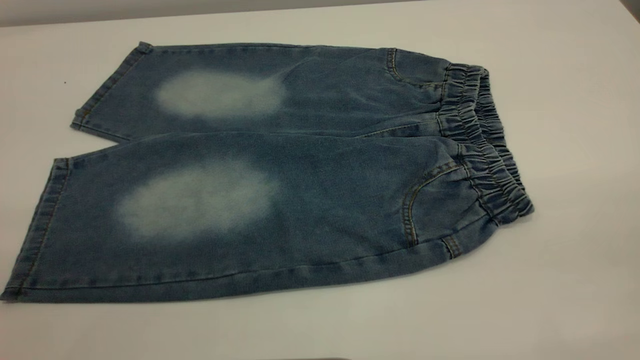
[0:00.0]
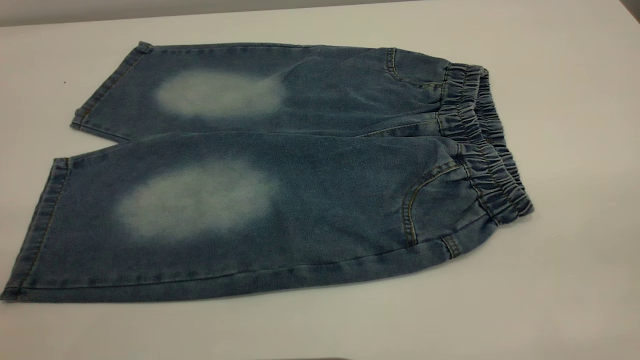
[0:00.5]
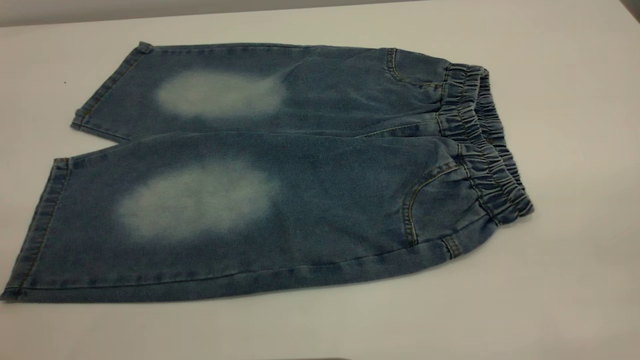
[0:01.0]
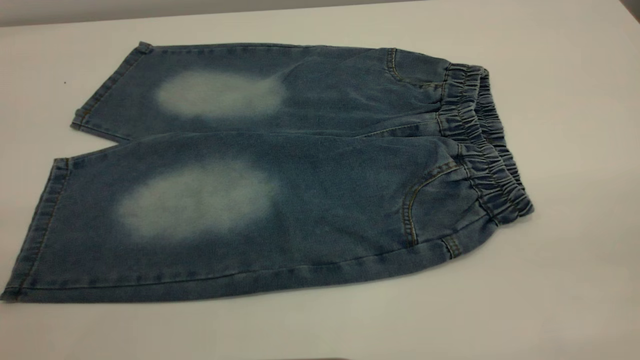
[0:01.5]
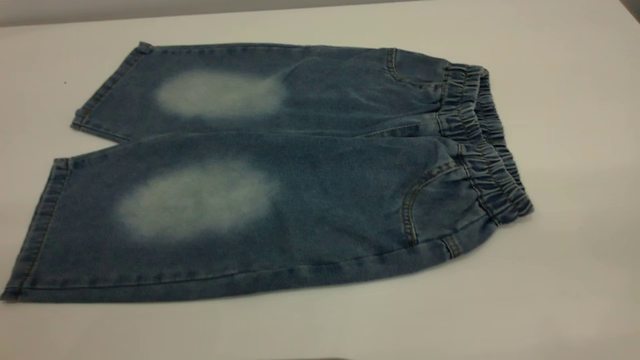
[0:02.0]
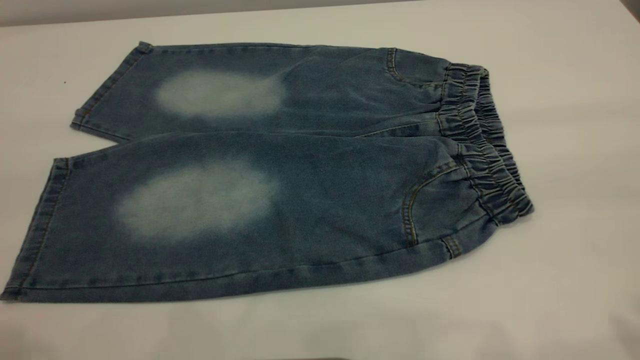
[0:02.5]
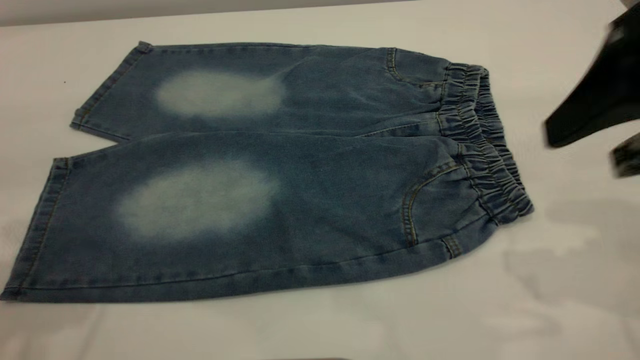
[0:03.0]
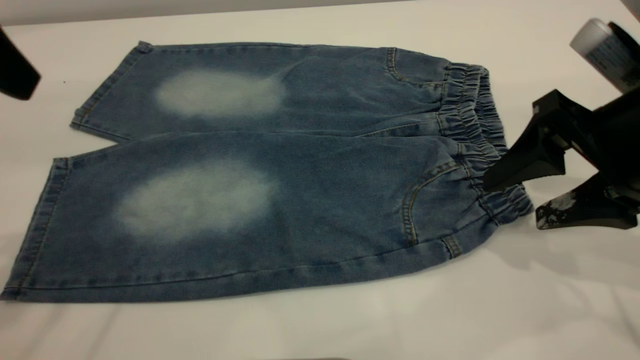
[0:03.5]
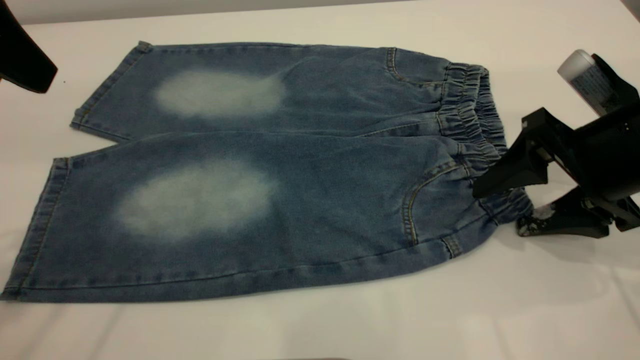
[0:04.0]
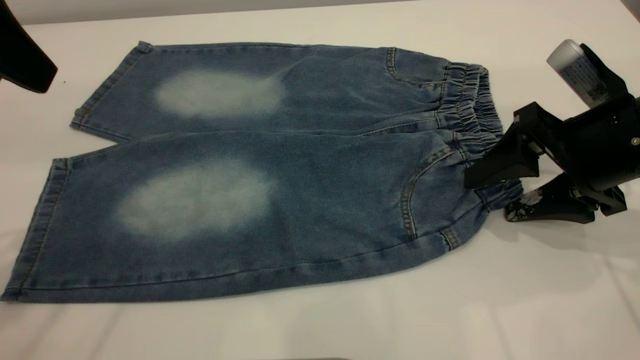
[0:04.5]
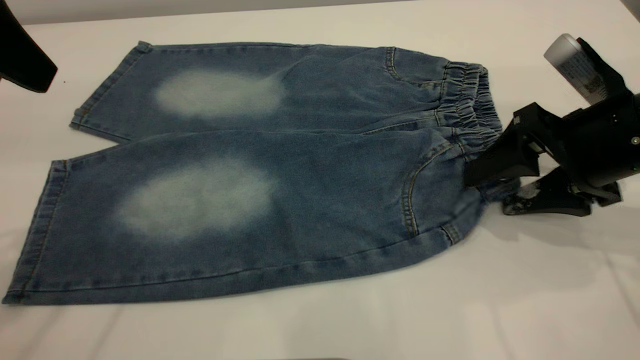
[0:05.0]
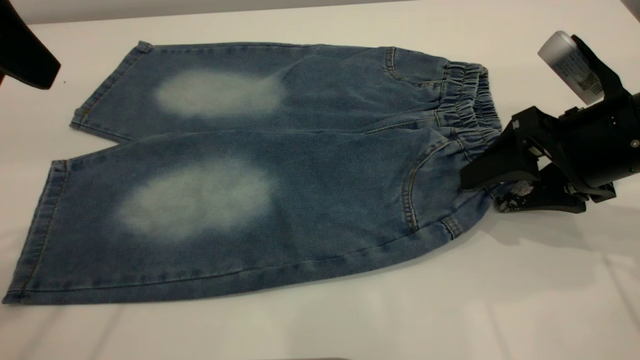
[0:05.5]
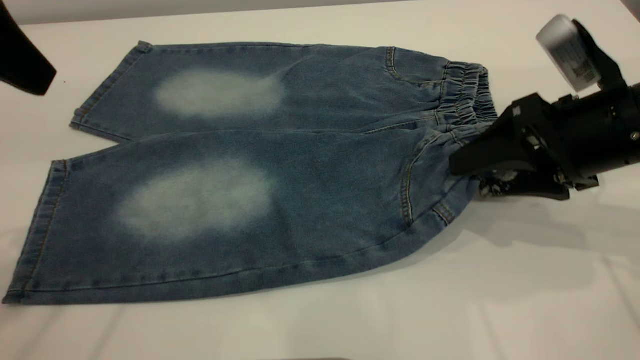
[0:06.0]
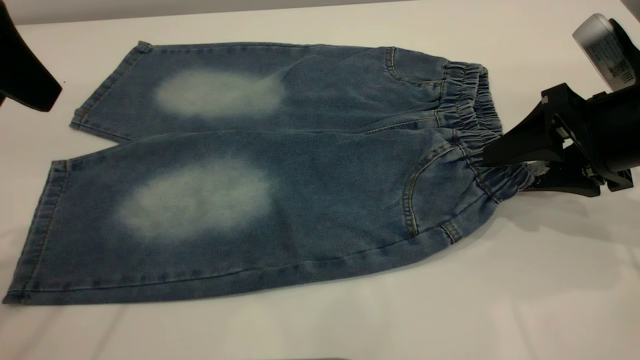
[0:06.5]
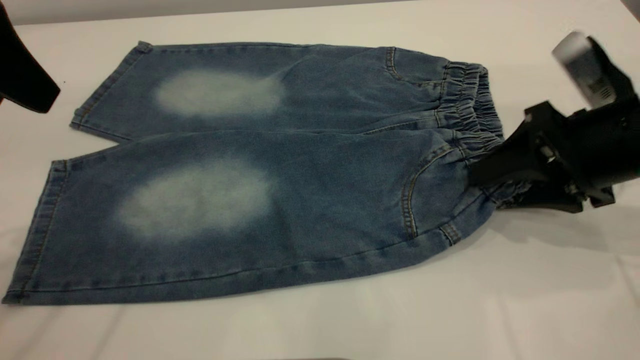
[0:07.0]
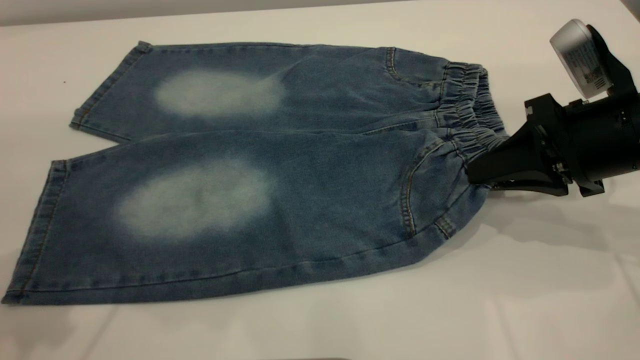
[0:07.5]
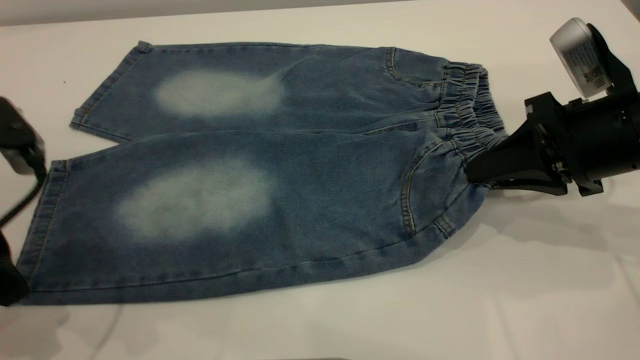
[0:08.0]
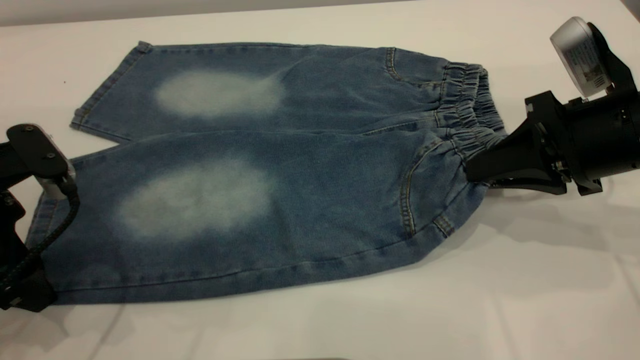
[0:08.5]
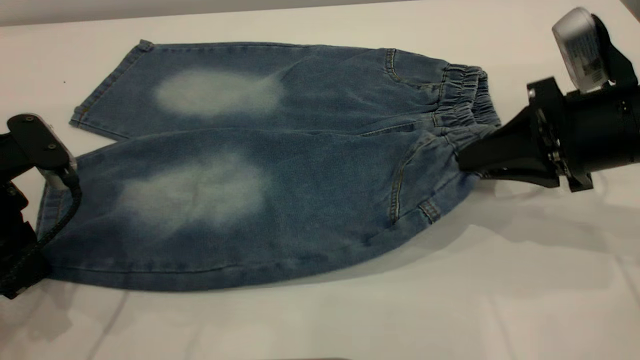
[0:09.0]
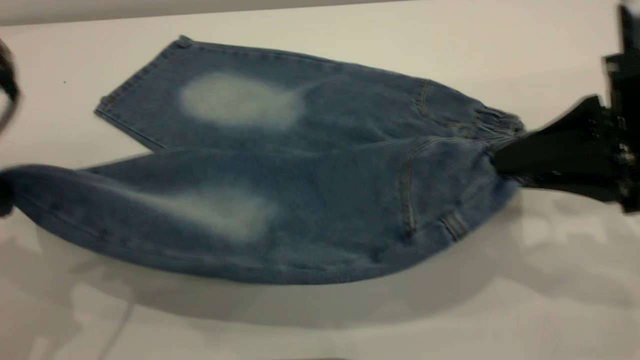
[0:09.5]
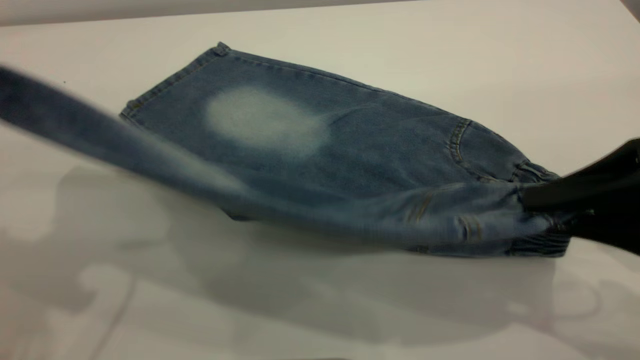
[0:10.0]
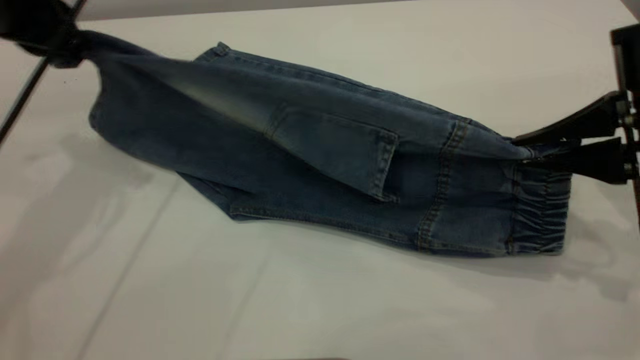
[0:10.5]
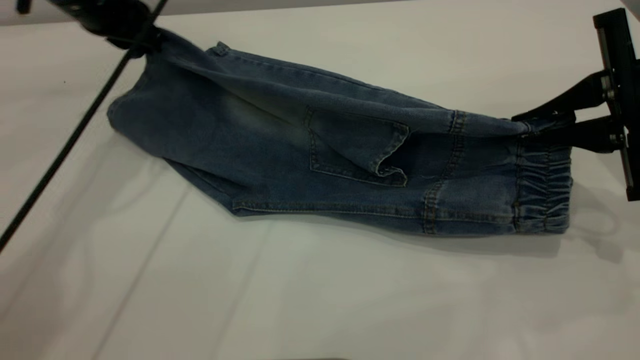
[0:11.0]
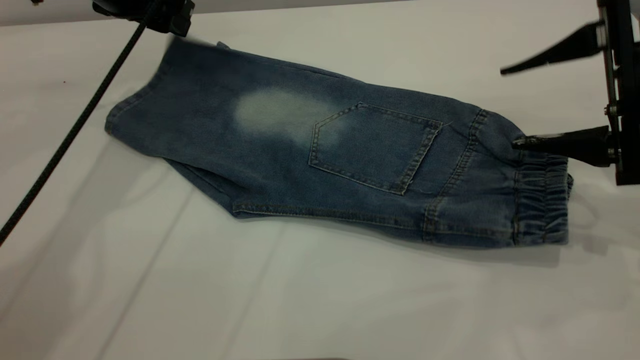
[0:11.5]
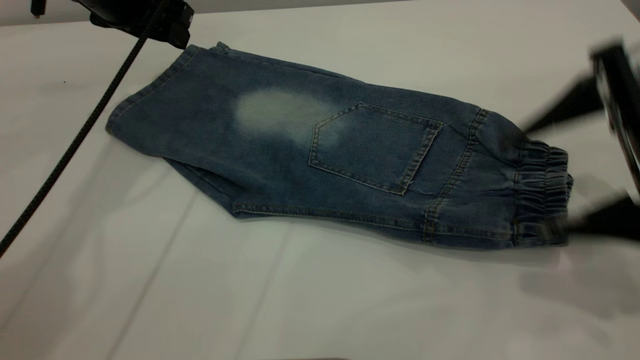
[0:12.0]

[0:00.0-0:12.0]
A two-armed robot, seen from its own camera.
Step, 0:00.0 to 0:11.5: Fold the bottom of the pants upward.
0:00.0 to 0:02.0: Neither gripper changes place.
0:02.0 to 0:04.0: The right gripper shifts approximately 35 cm forward and downward, while the left gripper moves forward, some 25 cm.
0:06.0 to 0:08.0: The left gripper heads downward, covering approximately 15 cm. The right gripper closes.
0:08.0 to 0:10.0: The left gripper heads upward, covering approximately 15 cm, and closes up. The right gripper shifts about 10 cm backward and upward.
0:10.0 to 0:12.0: The left gripper goes approximately 20 cm forward, and opens. Meanwhile the right gripper goes some 5 cm forward, and opens up.

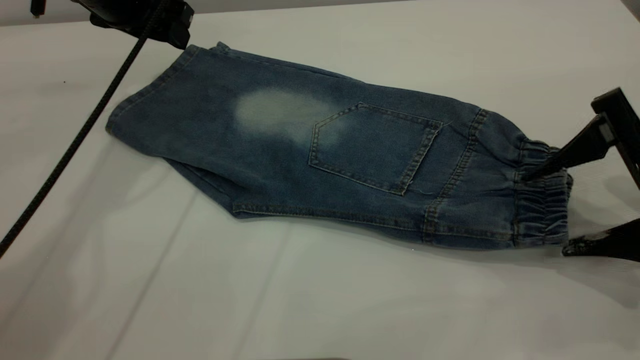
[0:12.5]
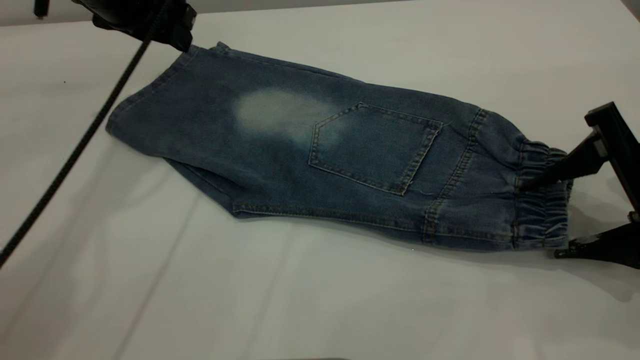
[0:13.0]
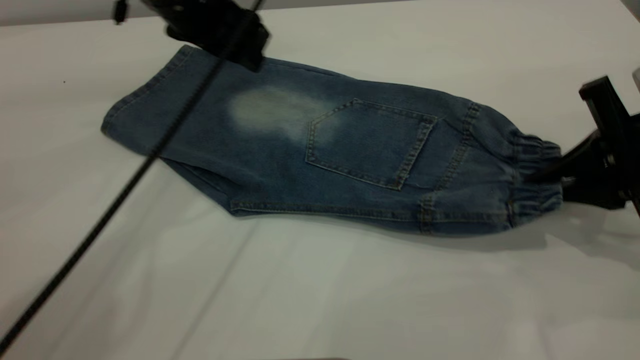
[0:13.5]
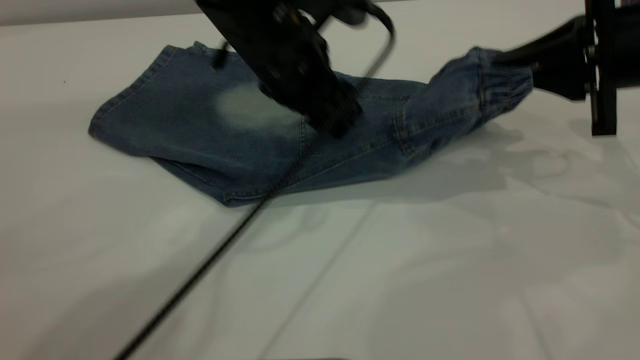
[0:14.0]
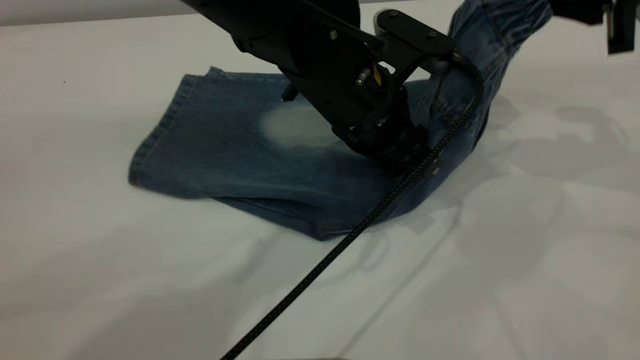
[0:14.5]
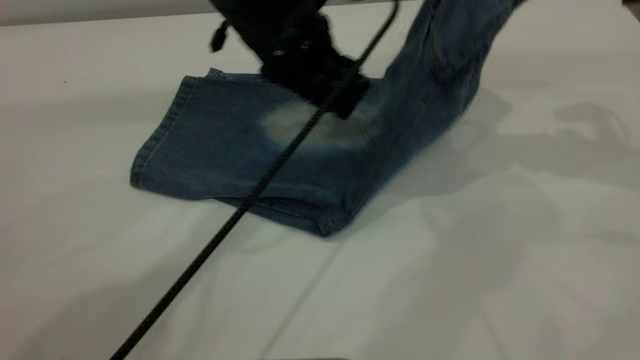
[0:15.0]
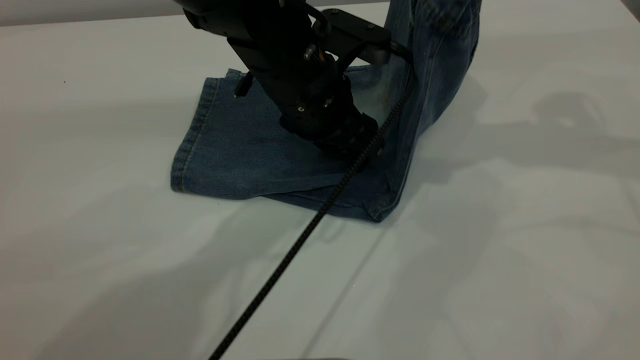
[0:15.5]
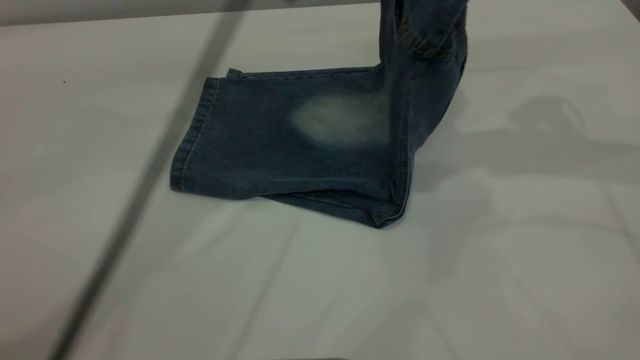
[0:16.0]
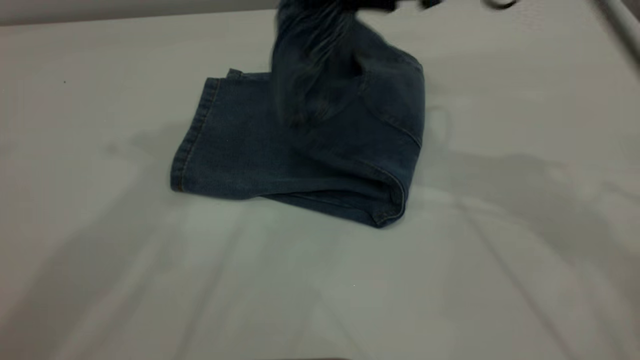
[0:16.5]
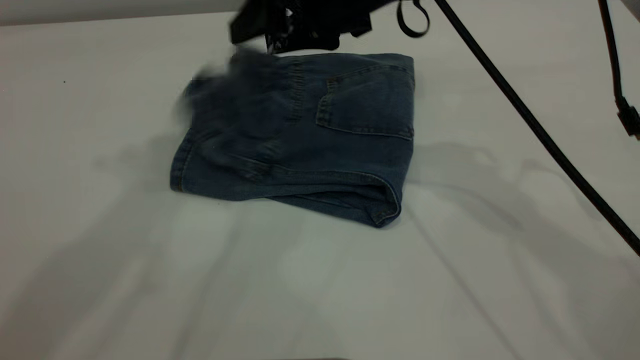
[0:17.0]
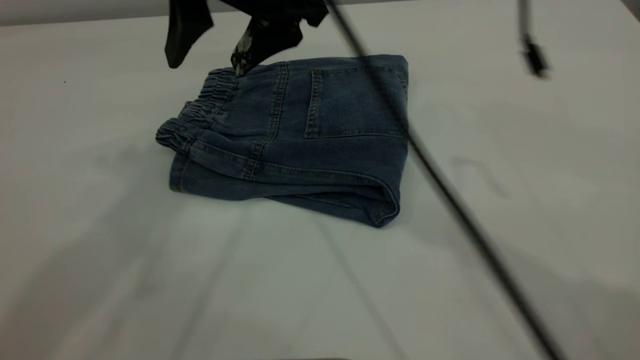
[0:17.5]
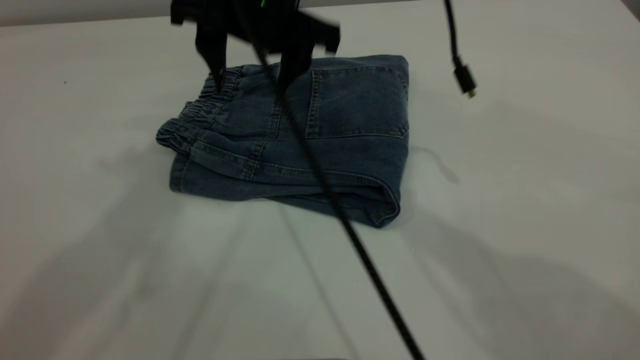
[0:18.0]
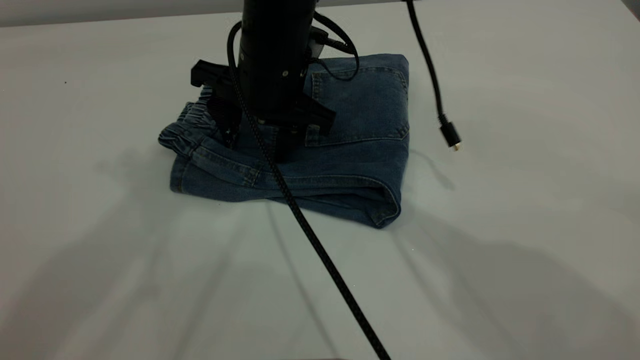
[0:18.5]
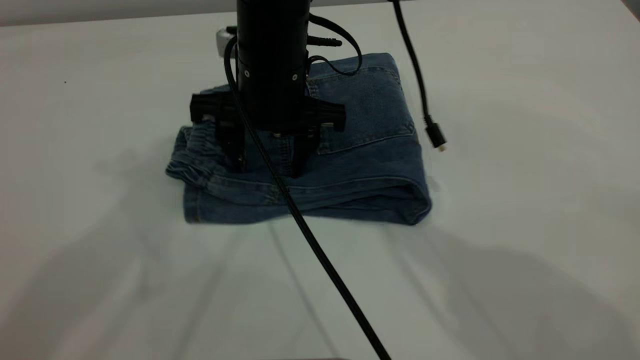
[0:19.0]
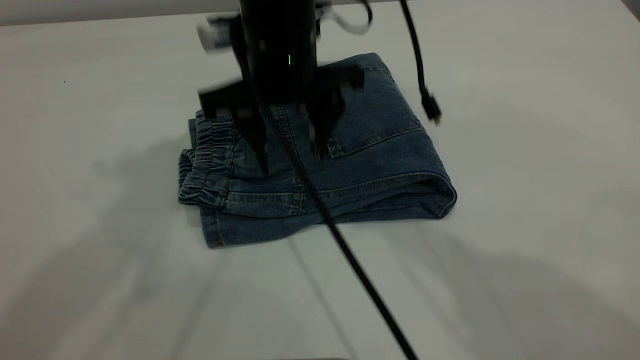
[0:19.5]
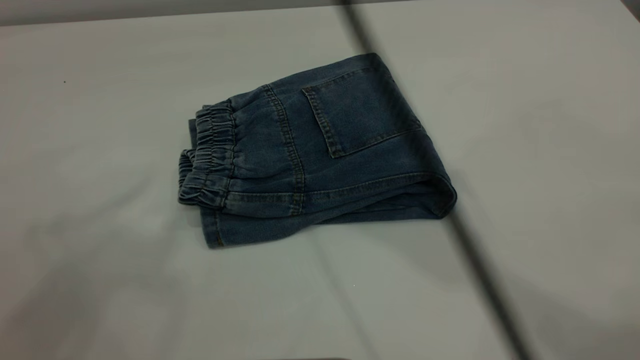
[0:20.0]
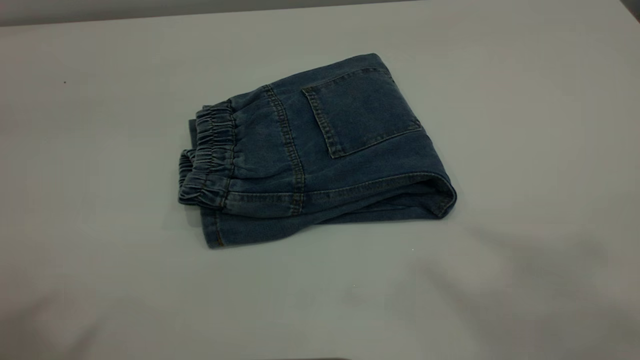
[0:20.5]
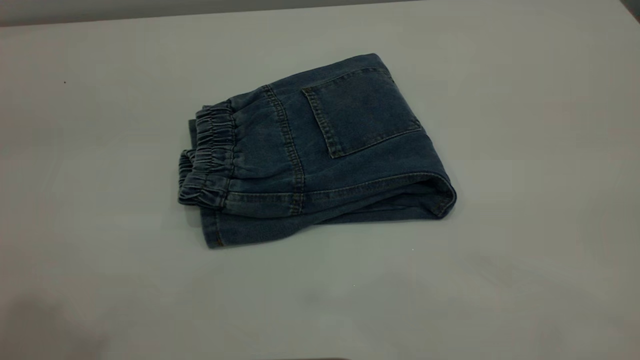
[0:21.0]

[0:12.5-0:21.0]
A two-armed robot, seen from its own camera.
Step, 0:12.5 to 0:17.0: Fold your pants from right to left.
0:12.5 to 0:14.5: The right gripper goes roughly 15 cm forward and upward, and closes, while the left gripper goes roughly 25 cm to the right and backward.
0:14.5 to 0:16.5: The left gripper heads upward and to the left, covering about 40 cm. The right gripper shifts about 20 cm to the left.
0:16.5 to 0:19.0: The right gripper travels to the left and downward by roughly 15 cm, and opens its fingers.
0:19.0 to 0:21.0: The left gripper goes roughly 15 cm backward; the right gripper goes roughly 60 cm upward, backward and to the right.
